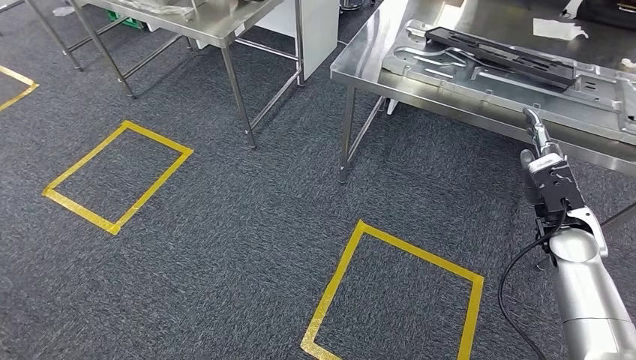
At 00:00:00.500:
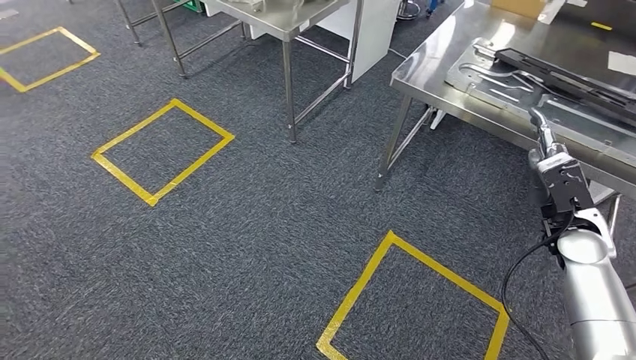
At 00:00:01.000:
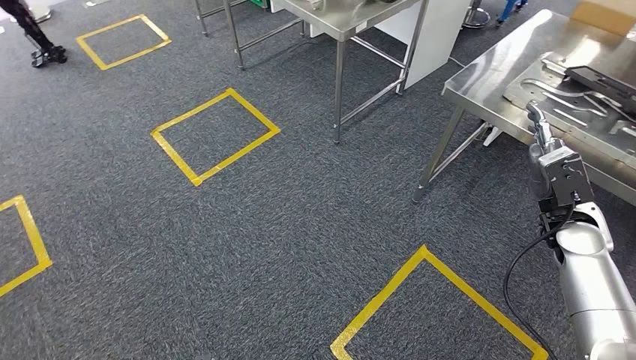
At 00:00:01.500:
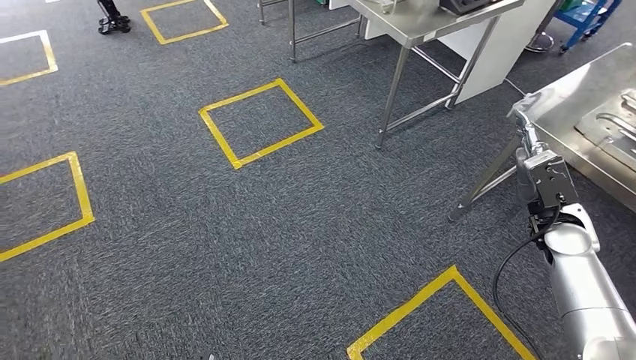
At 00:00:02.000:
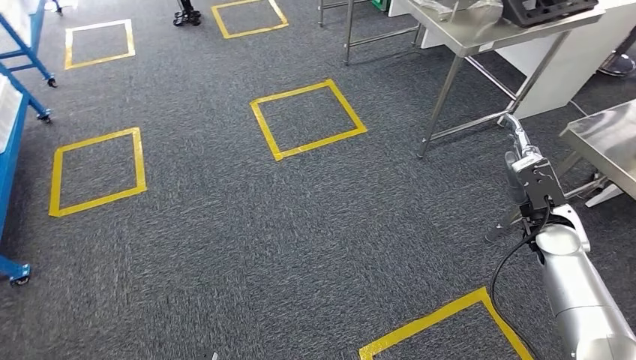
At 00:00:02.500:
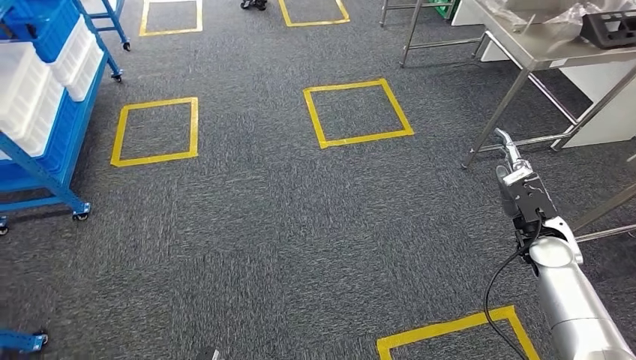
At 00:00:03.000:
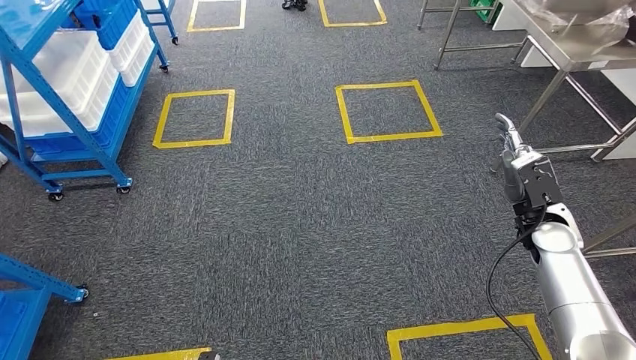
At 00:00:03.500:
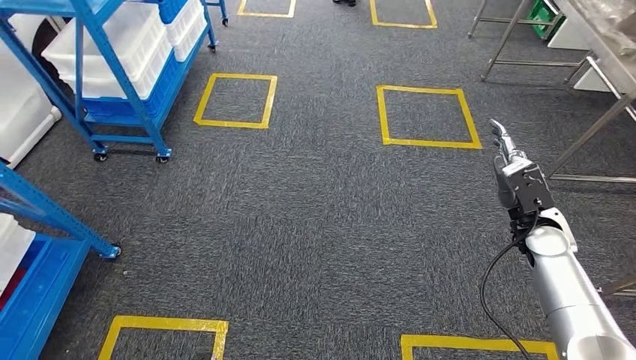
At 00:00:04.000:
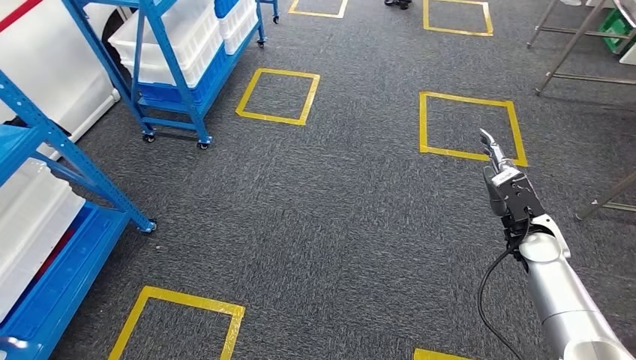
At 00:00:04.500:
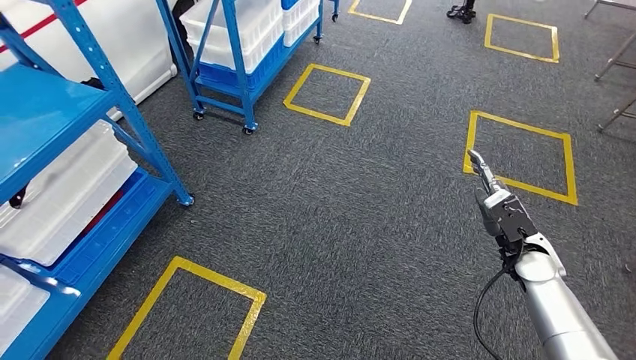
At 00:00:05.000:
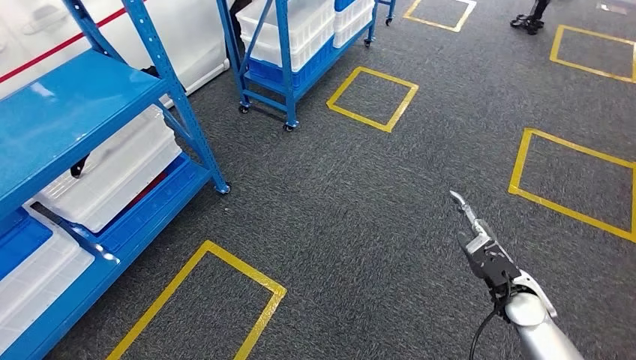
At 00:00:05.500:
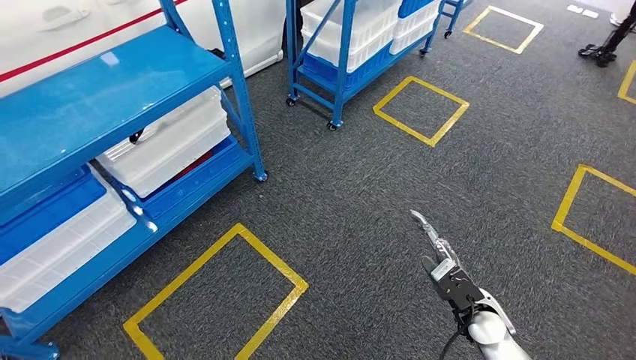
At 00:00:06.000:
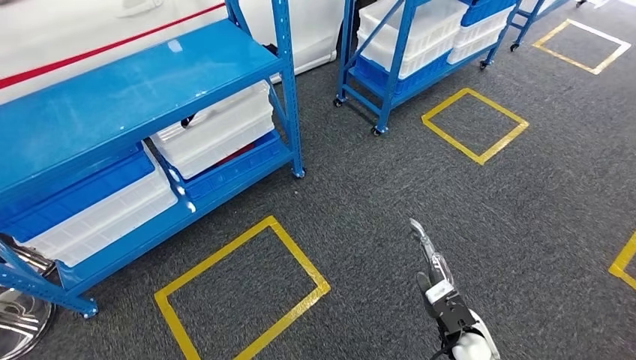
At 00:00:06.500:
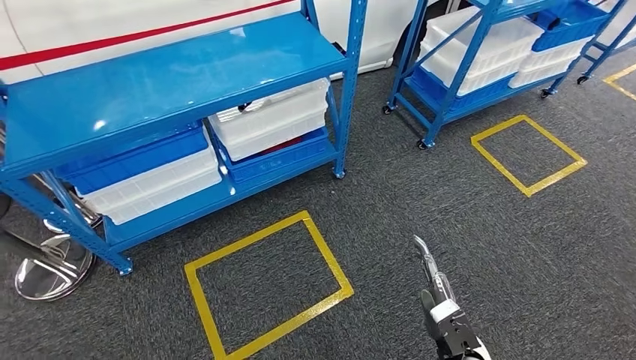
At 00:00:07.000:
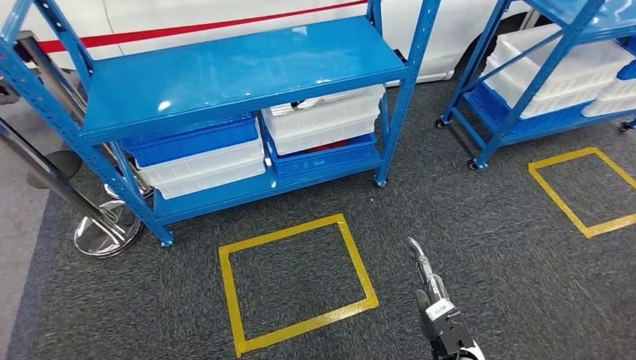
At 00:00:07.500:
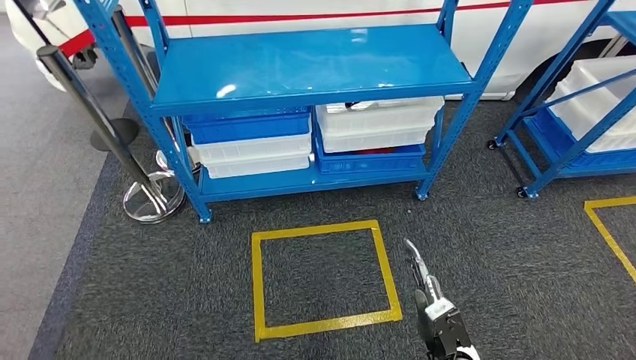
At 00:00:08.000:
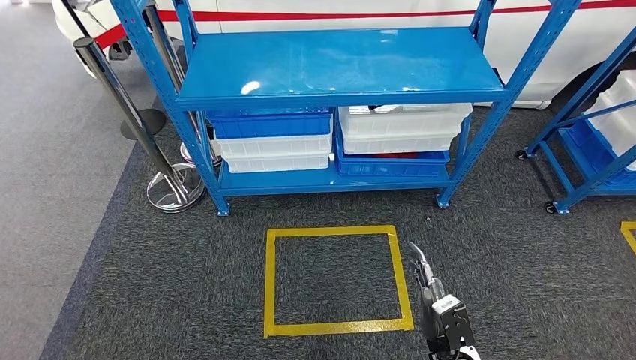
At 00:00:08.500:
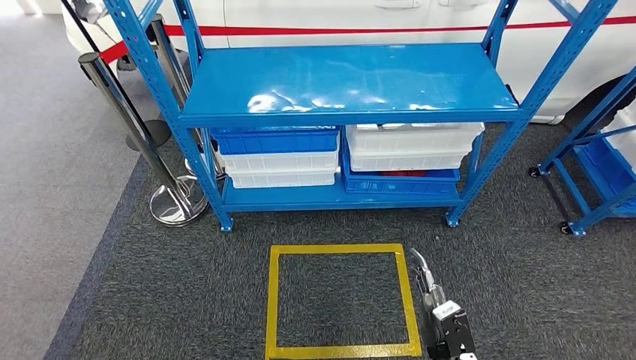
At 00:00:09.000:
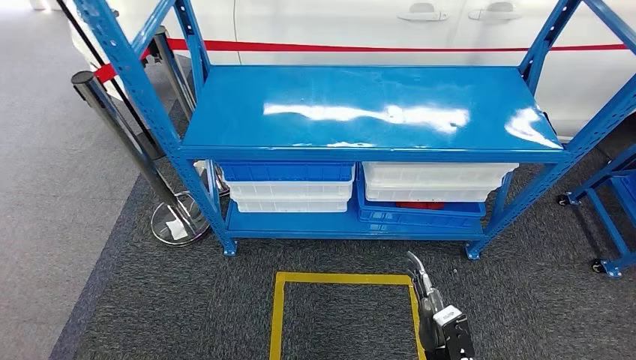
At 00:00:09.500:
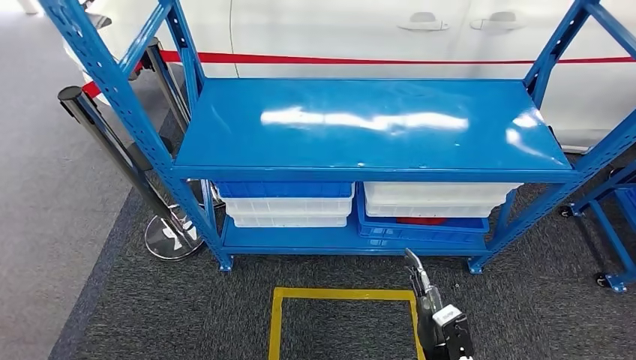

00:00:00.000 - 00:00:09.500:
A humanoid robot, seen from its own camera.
Step, 00:00:00.000 - 00:00:09.500: Move to the initial position of the shelf.
